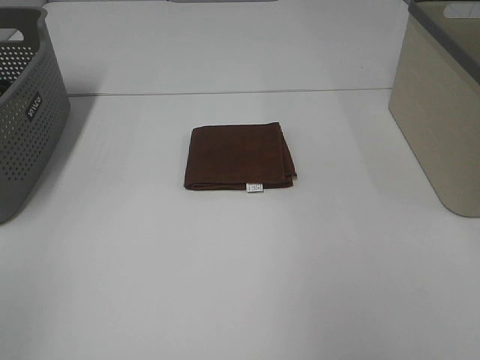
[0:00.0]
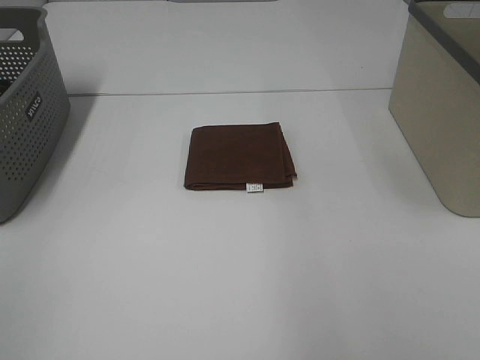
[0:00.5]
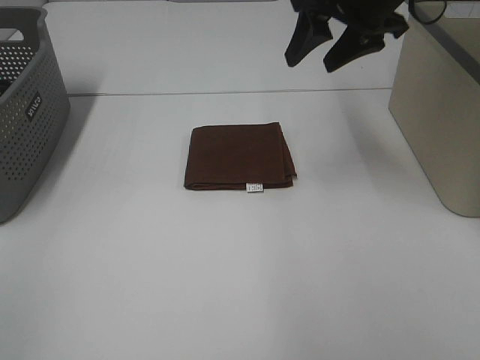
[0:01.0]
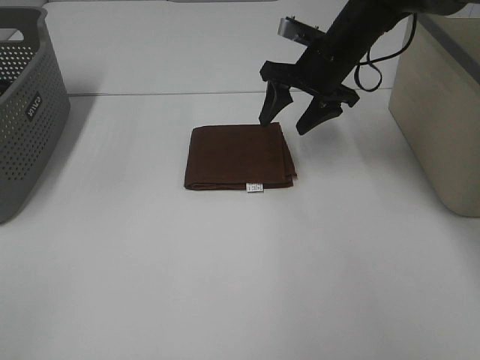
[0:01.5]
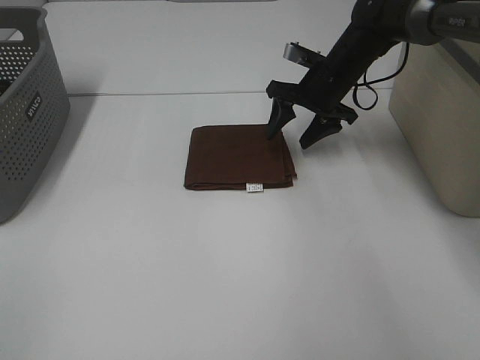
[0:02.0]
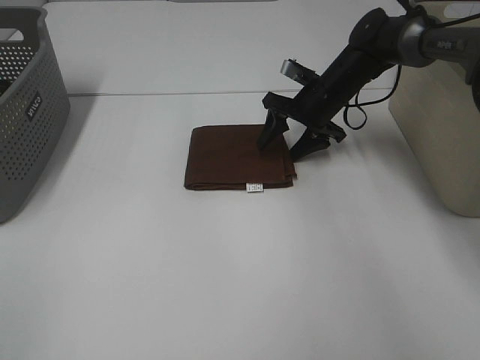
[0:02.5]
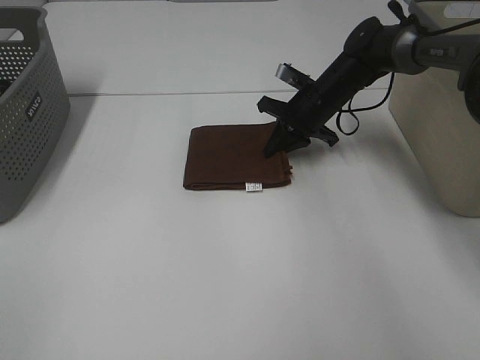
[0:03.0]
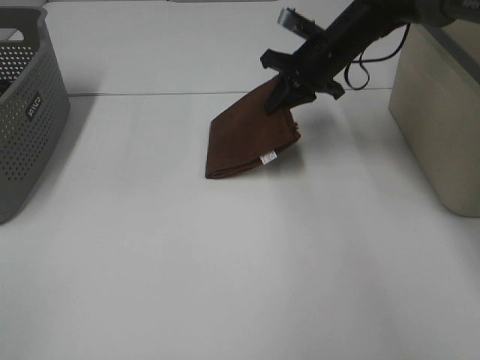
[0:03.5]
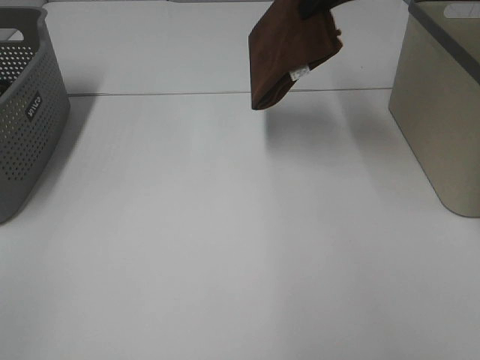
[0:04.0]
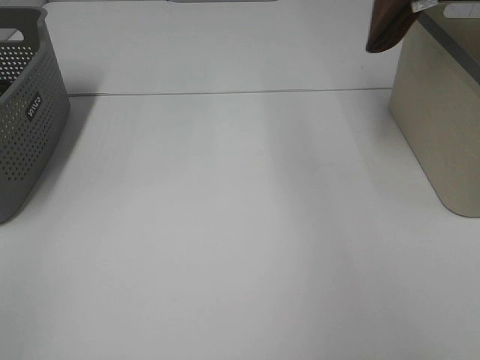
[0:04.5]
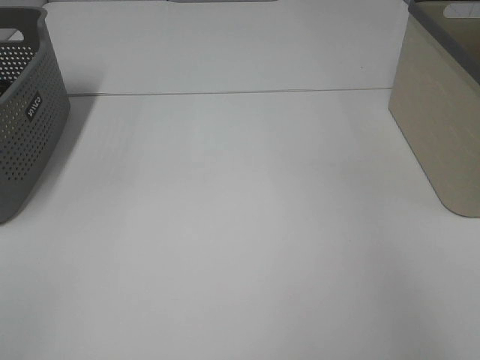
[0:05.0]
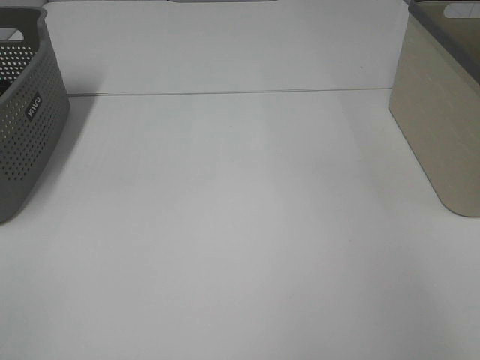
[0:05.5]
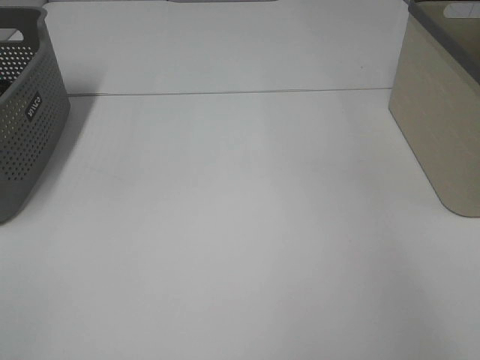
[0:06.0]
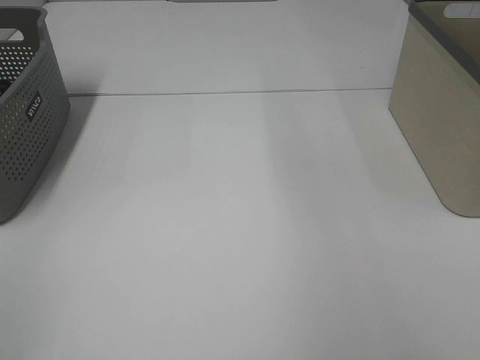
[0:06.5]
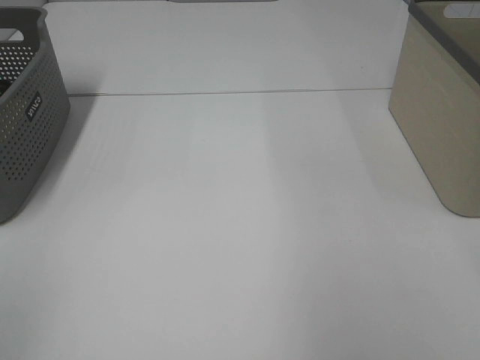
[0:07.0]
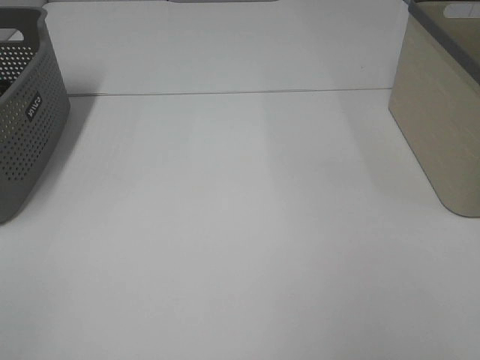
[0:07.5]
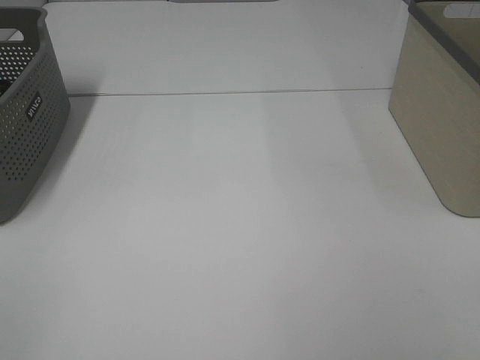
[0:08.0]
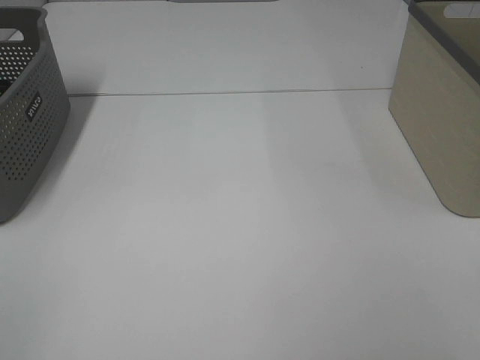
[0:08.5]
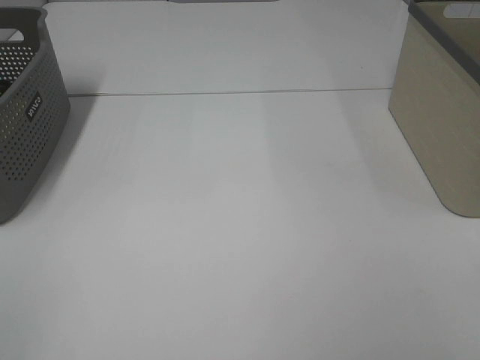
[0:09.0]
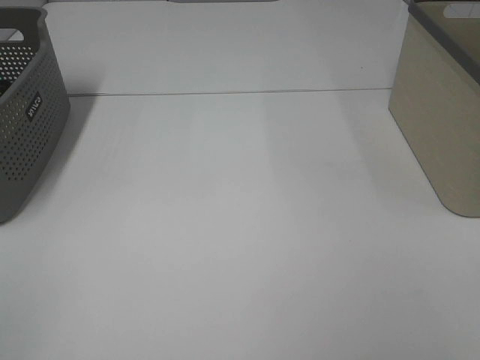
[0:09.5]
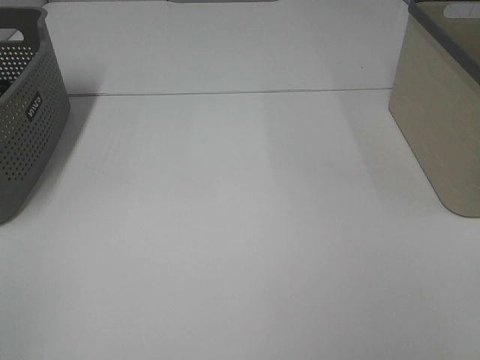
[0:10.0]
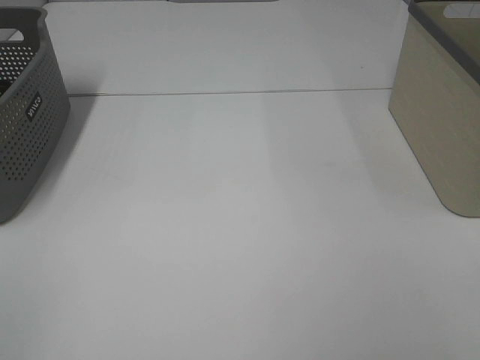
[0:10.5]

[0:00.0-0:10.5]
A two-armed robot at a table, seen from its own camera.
Step, 0:00.0 to 0:03.0: Right hand: grab the folded brown towel.
Step, 0:03.5 to 0:05.5: Right hand: place the brown towel in right basket.
0:00.0 to 0:02.0: The right gripper shifts some 40 cm forward, downward and to the left.
0:02.0 to 0:04.0: The right gripper is displaced upward by approximately 20 cm, and closes.
0:04.0 to 0:06.5: The right gripper travels to the right, upward and backward by approximately 15 cm, and opens up.
0:08.5 to 0:10.5: Both grippers stay put.

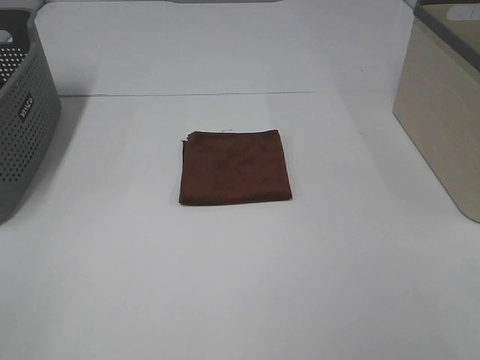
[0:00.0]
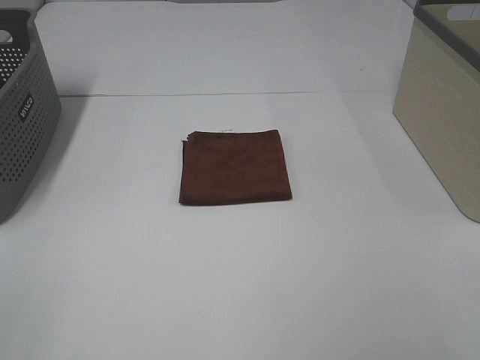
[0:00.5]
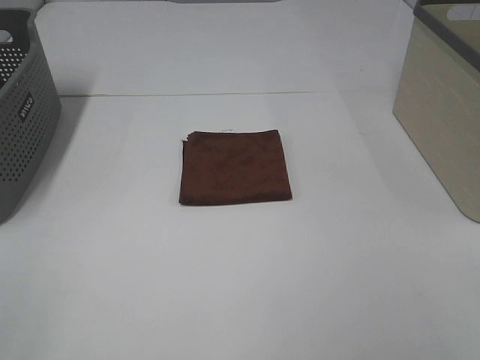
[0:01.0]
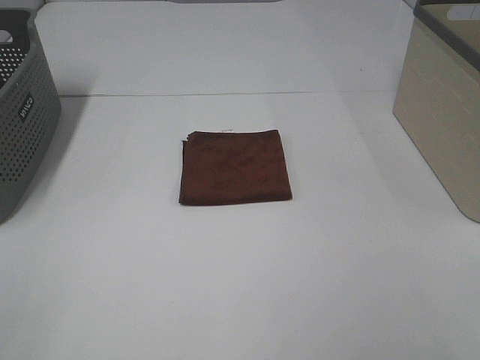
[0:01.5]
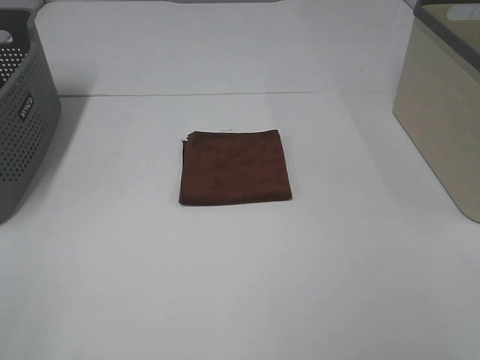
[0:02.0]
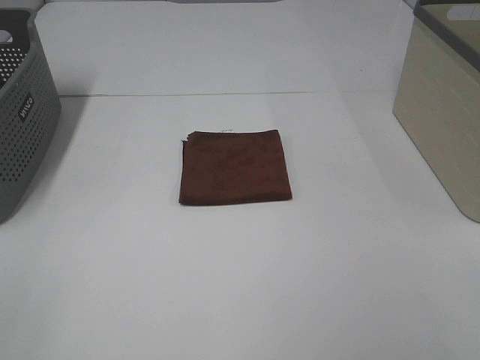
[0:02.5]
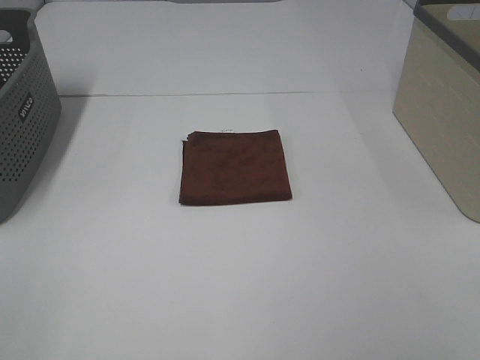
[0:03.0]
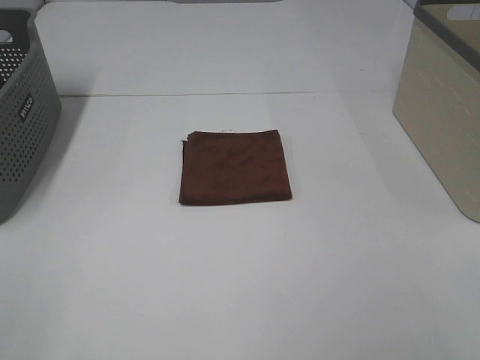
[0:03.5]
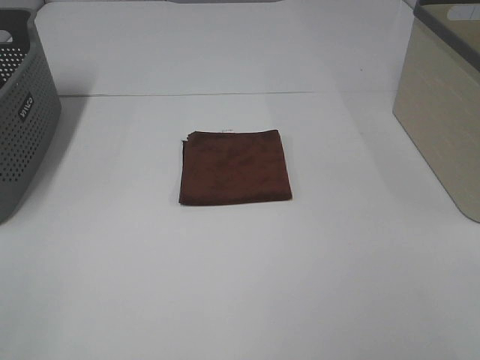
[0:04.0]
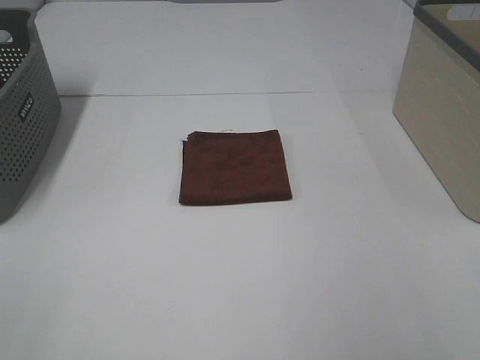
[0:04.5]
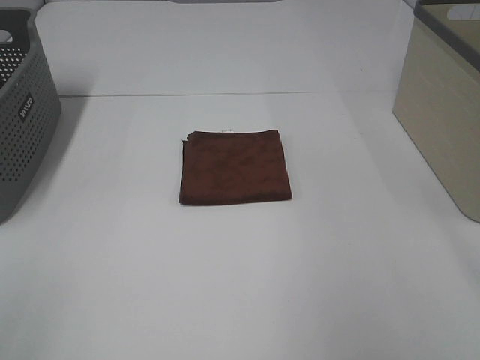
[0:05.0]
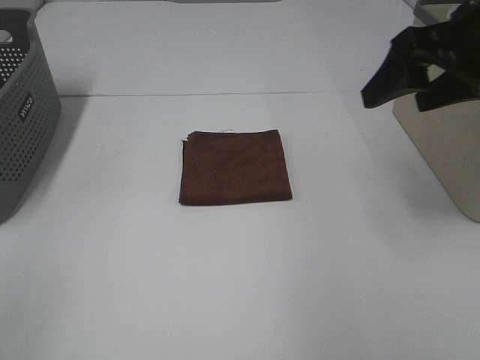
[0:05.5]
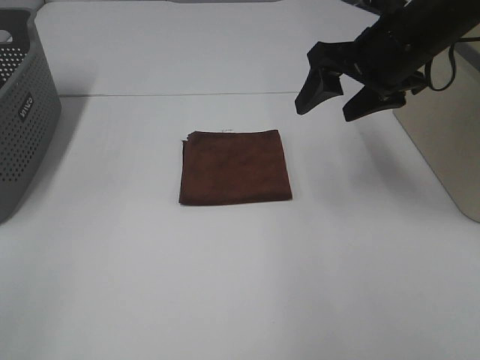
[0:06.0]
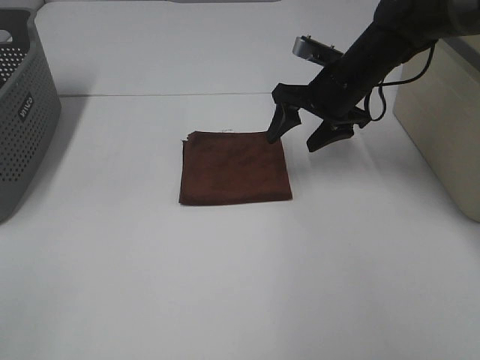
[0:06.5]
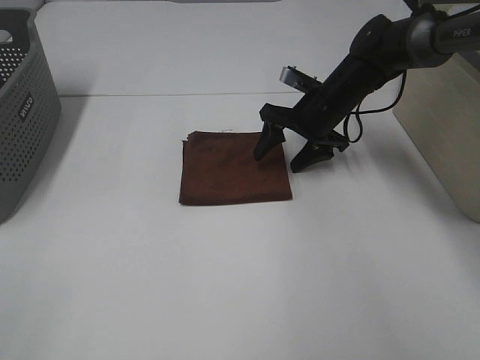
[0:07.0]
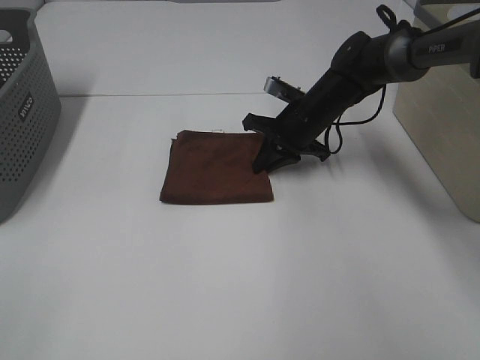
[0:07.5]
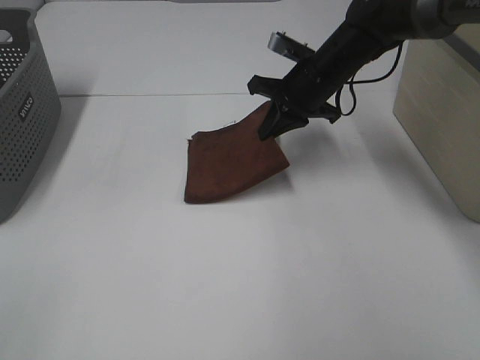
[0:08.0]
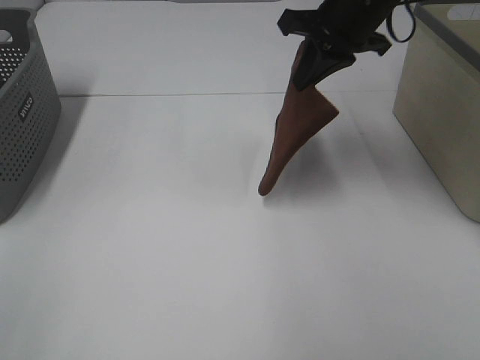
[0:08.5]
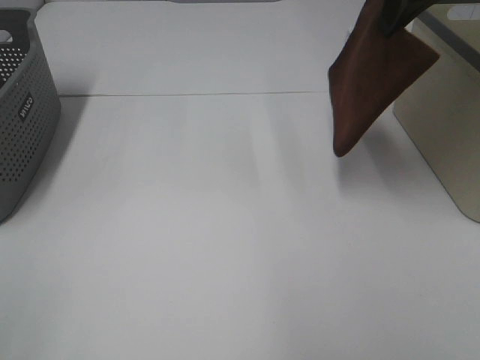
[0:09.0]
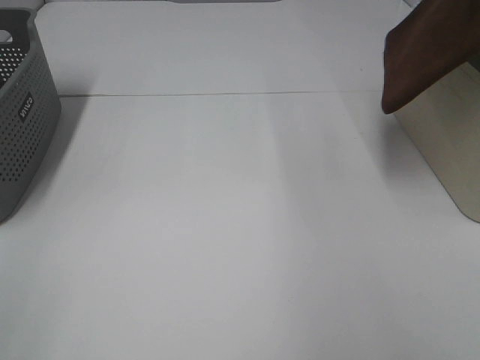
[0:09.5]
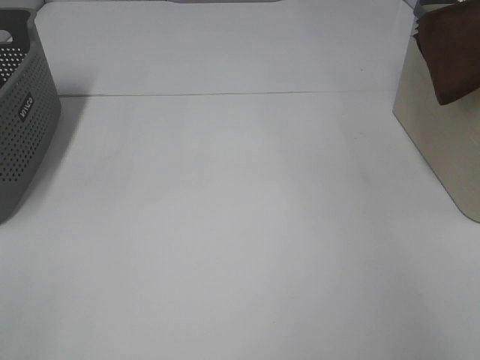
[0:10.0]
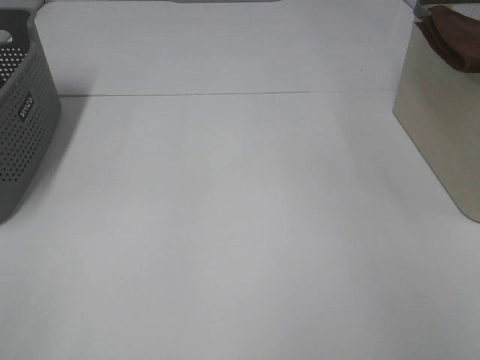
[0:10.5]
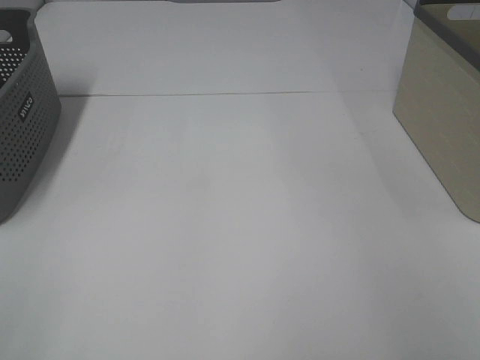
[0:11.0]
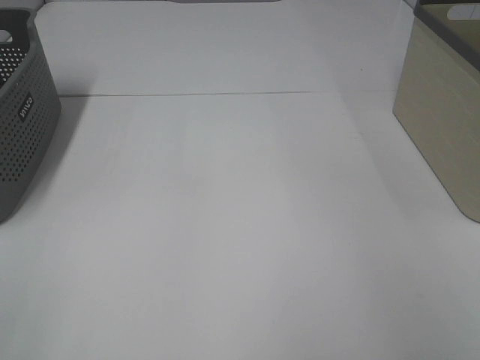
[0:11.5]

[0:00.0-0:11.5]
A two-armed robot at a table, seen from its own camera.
Step, 0:00.0 to 0:07.5: Right hand: grab the folded brown towel.
Step, 0:08.0 to 0:11.0: Right hand: place the brown towel in right basket.
0:00.0 to 0:04.0: Neither gripper changes place.
0:04.0 to 0:06.0: The right gripper goes approximately 35 cm forward.
0:06.0 to 0:07.5: The right gripper moves downward and forward, about 20 cm, and closes.
0:07.5 to 0:09.5: The right gripper heads upward and to the right, covering about 35 cm.
0:09.5 to 0:11.5: The right gripper travels to the right and downward by roughly 20 cm, and opens its fingers.

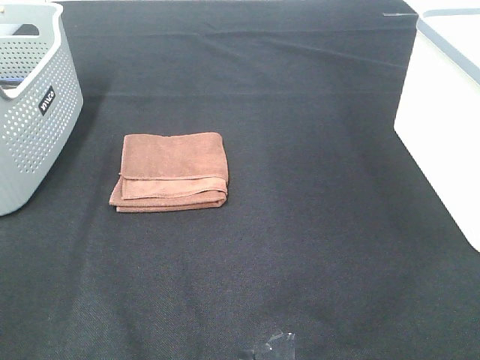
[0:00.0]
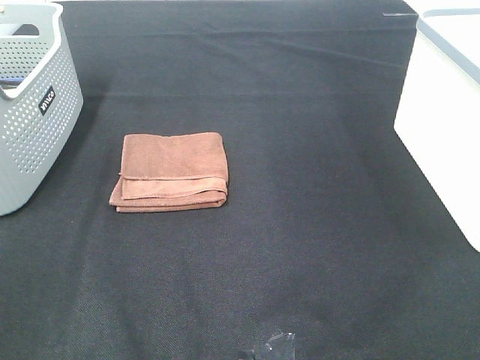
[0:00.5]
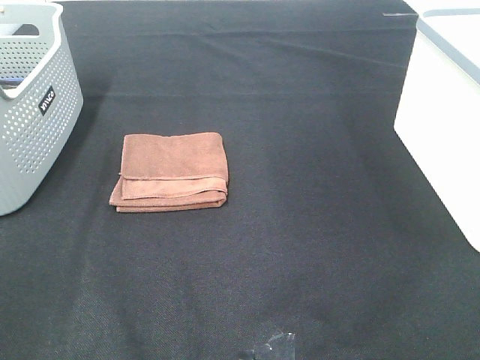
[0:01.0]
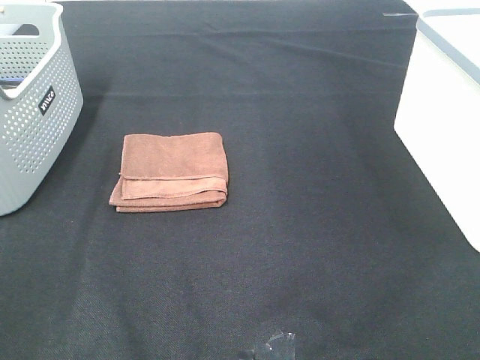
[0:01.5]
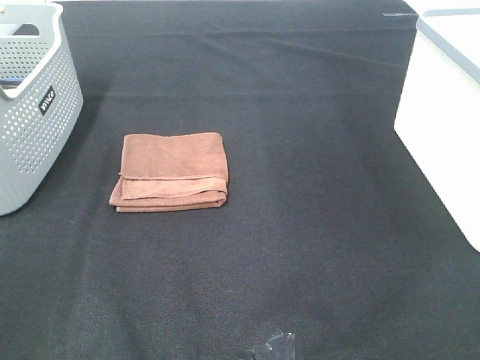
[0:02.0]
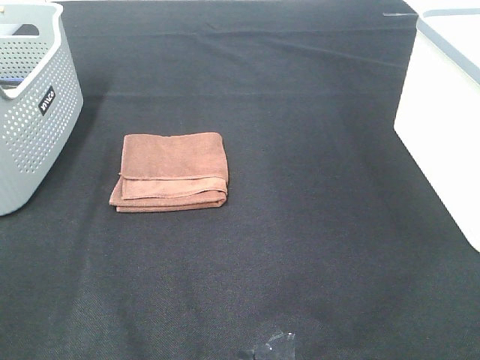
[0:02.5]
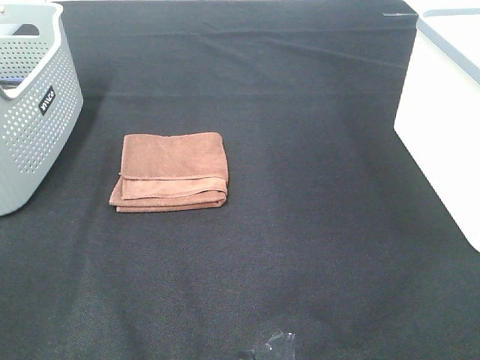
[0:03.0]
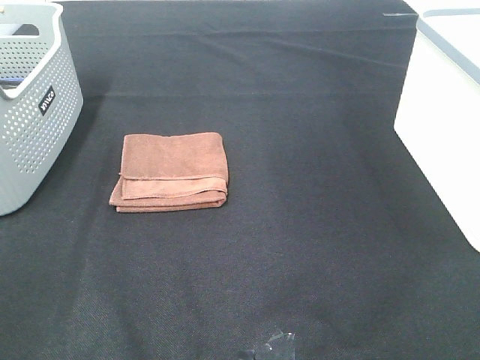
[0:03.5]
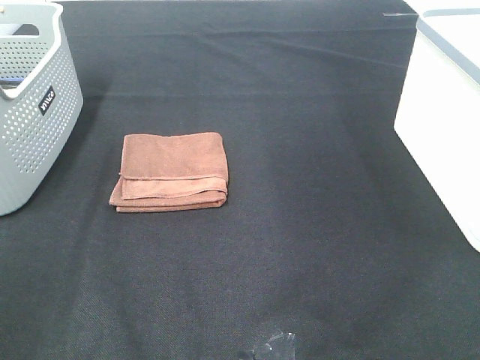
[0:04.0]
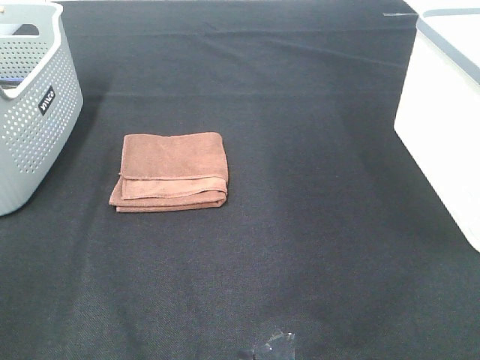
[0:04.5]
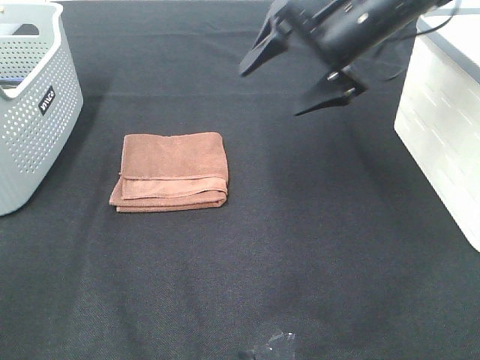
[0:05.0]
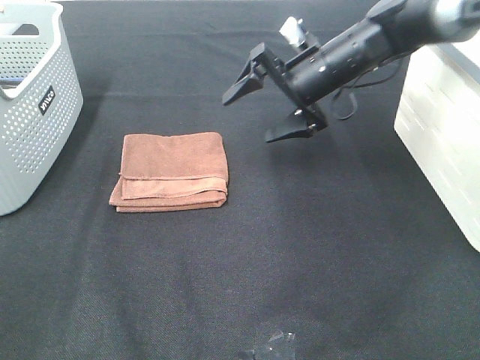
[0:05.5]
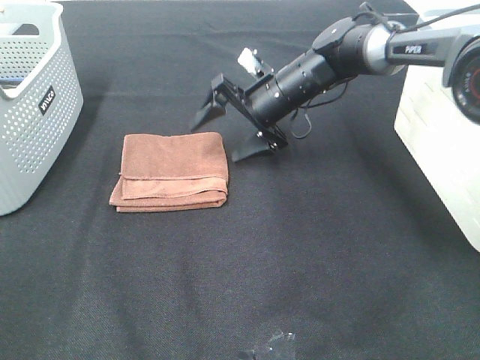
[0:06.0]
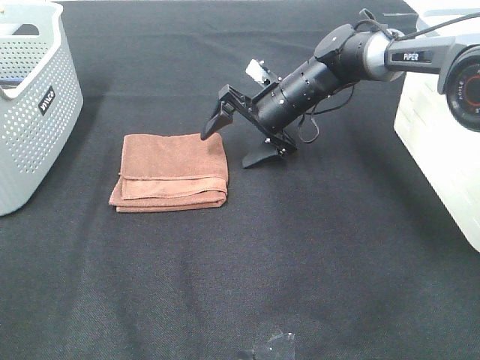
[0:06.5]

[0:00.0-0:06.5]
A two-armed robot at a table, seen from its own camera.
0:00.0 to 0:02.0: Neither gripper changes place.
0:04.5 to 0:06.5: The right gripper moves downward, forward and to the left, some 40 cm.
